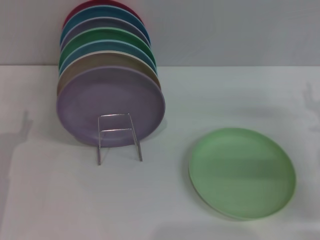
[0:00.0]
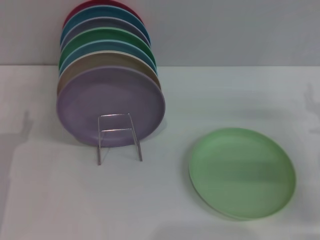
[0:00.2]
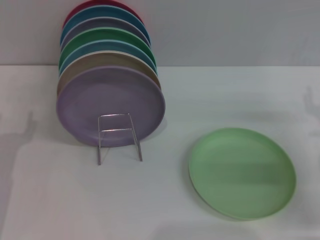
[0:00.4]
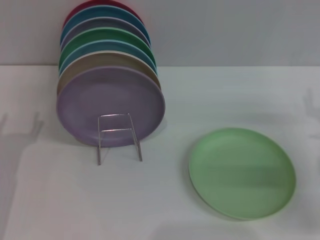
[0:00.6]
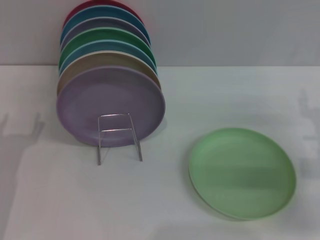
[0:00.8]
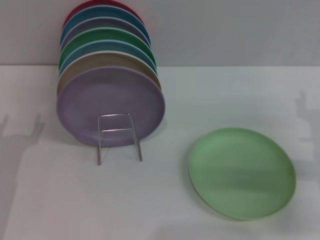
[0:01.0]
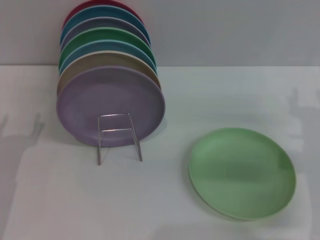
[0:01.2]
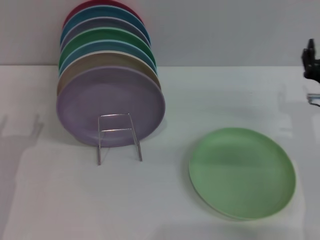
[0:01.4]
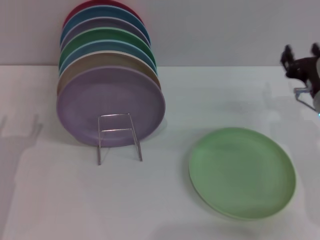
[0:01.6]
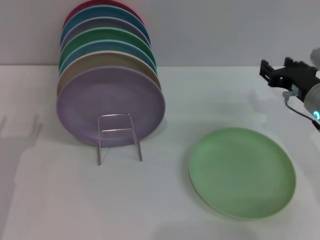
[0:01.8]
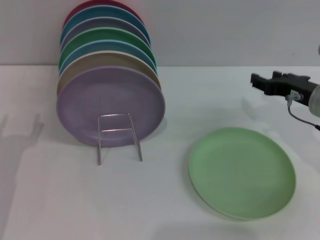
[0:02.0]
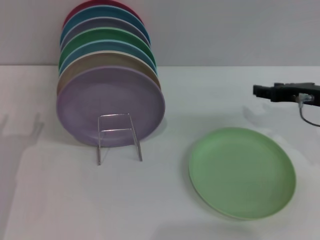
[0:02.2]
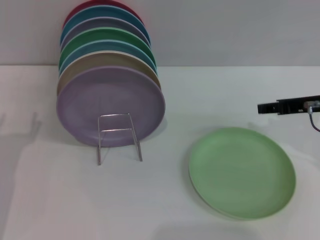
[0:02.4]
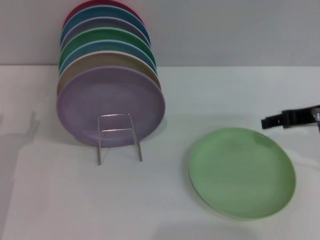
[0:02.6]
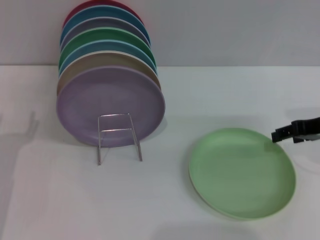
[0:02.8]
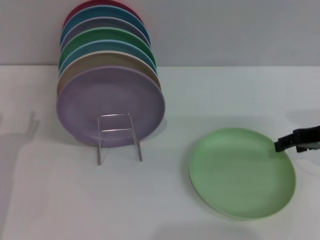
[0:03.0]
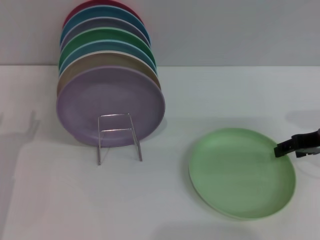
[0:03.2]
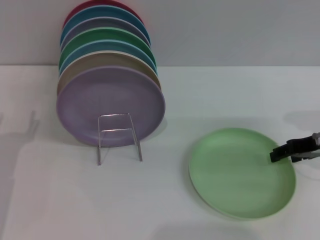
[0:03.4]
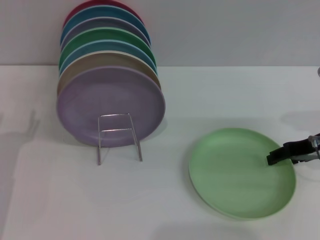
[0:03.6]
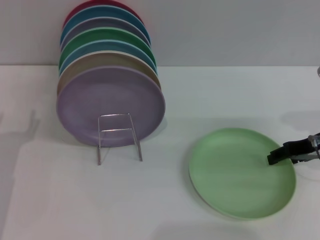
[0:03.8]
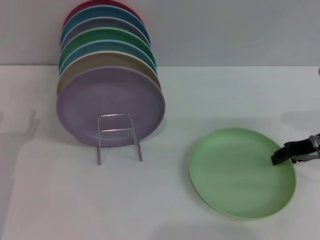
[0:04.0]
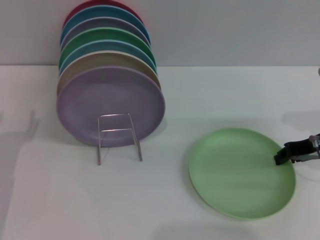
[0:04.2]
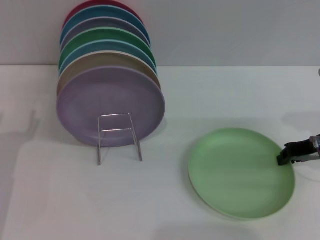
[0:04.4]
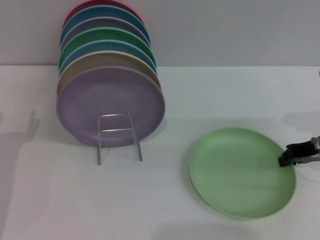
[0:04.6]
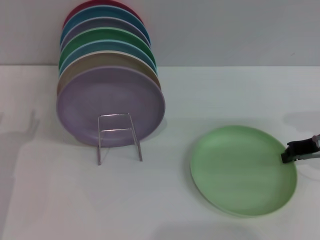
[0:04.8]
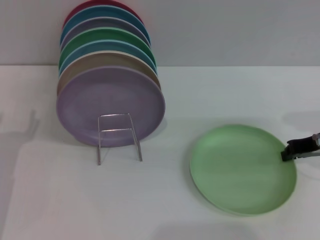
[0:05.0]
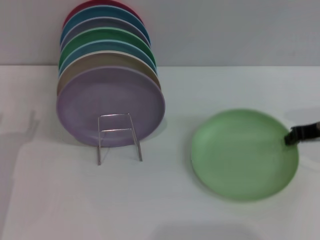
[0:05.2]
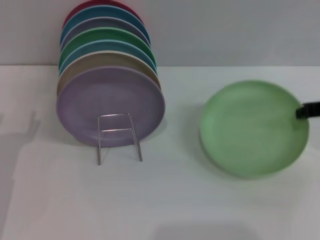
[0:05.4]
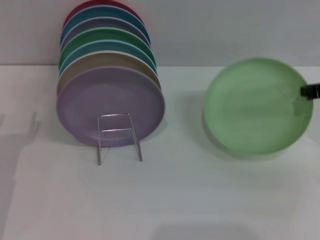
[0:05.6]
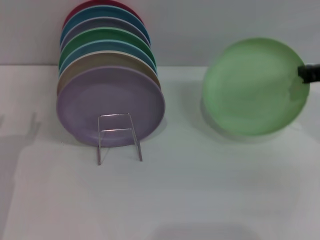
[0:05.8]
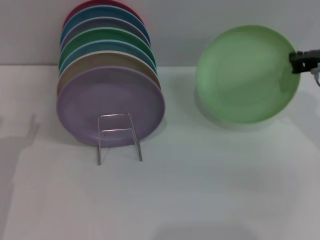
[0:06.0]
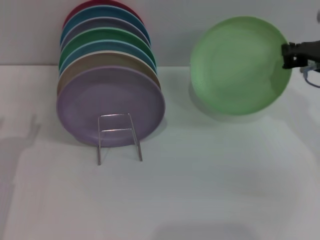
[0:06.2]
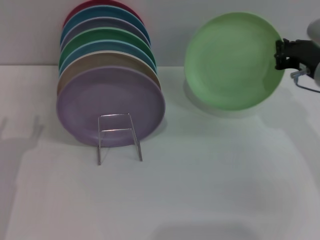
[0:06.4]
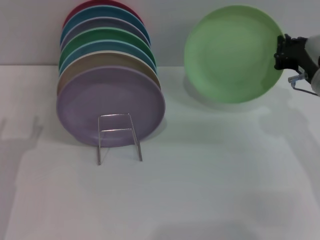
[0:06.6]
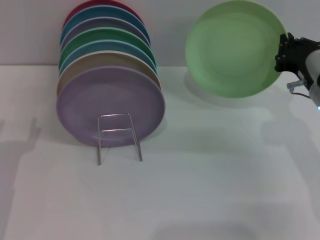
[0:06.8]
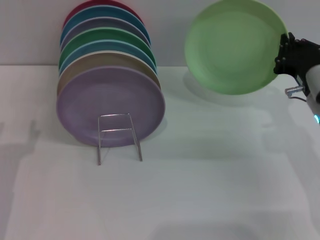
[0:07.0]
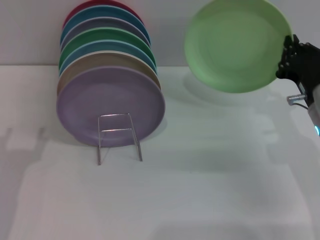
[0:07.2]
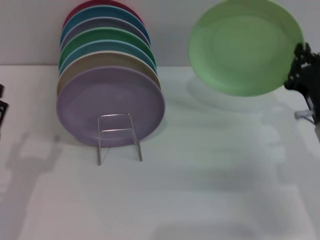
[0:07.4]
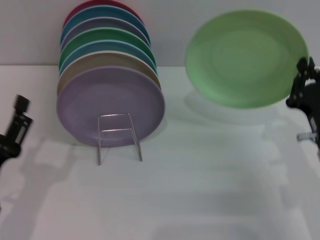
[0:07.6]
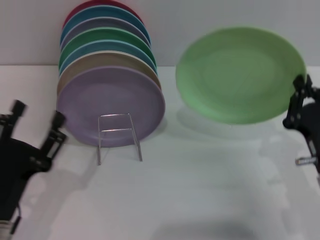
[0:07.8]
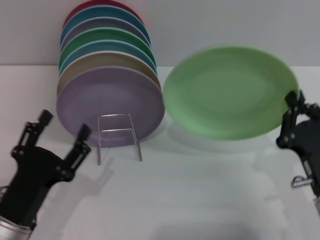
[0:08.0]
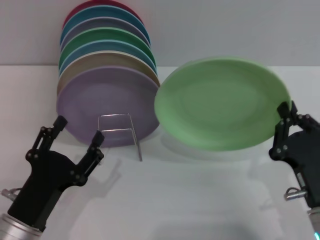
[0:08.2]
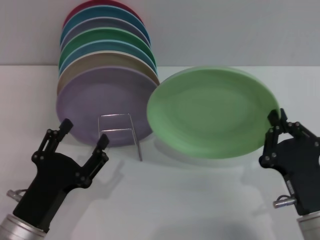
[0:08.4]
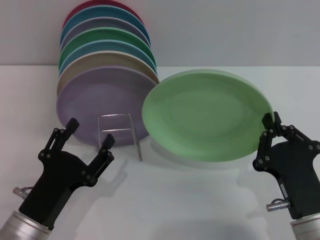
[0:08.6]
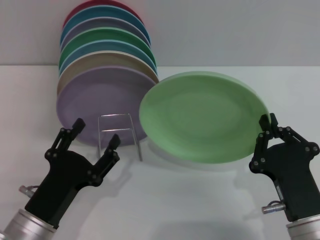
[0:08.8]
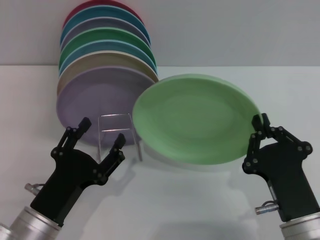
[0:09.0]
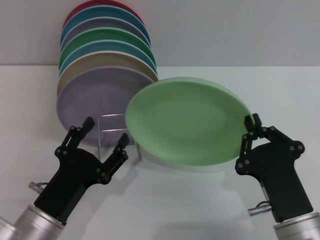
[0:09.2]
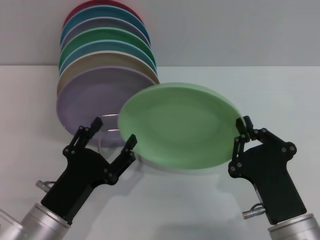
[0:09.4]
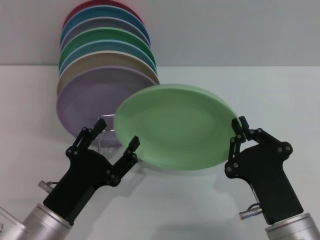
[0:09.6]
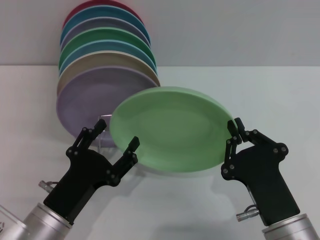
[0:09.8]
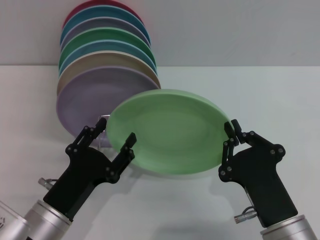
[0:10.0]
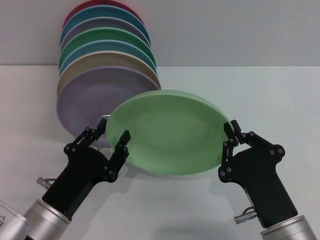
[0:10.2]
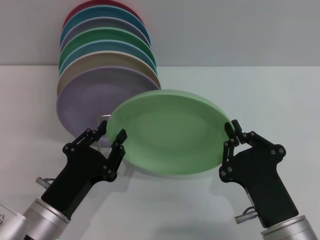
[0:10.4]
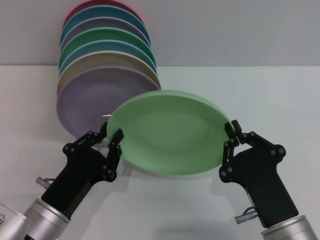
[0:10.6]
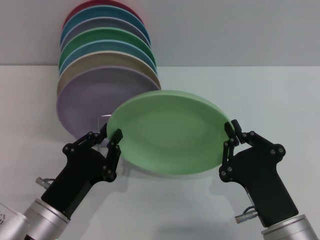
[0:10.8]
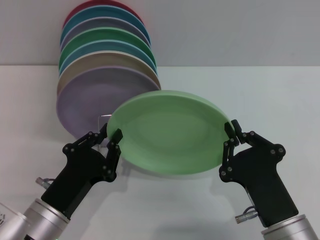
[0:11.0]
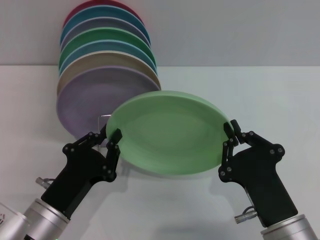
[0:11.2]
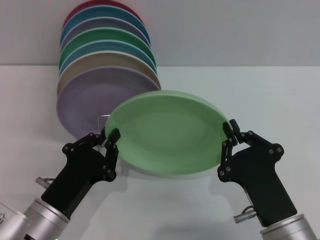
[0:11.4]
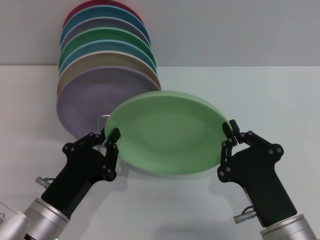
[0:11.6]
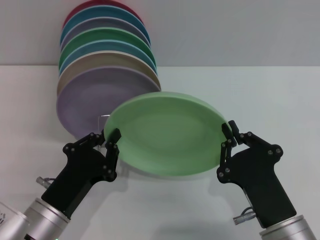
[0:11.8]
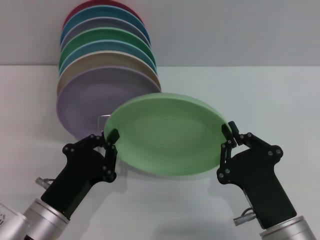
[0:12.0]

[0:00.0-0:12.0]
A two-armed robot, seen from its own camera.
Task of the whole recording: Grip the plate with one hand, pass it to the other, then set it on the shelf.
Step, 0:00.0 to 0:05.6: Pick up the plate with the right gripper.
0:00.0 to 0:01.6: The right gripper shifts about 5 cm to the left.
0:01.6 to 0:03.0: The right gripper moves upward, approximately 5 cm.
0:03.0 to 0:04.4: The right gripper closes up.
0:04.4 to 0:06.0: The right gripper is displaced upward by some 5 cm, and closes its fingers.
0:06.0 to 0:07.6: The left gripper shifts some 5 cm backward; the right gripper heads downward and backward, covering approximately 15 cm.
0:07.6 to 0:09.0: The right gripper heads backward and to the left, covering approximately 10 cm. Meanwhile the left gripper moves to the right, roughly 5 cm.
0:09.0 to 0:10.4: The grippers stay close to where they were, moving slightly.
0:10.4 to 0:12.0: The left gripper closes up.

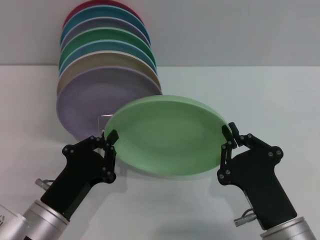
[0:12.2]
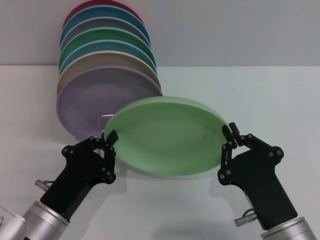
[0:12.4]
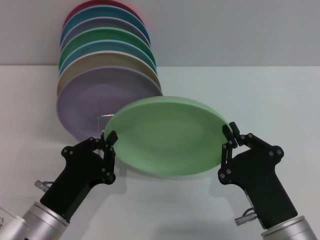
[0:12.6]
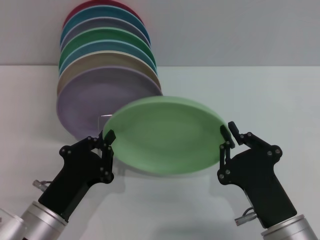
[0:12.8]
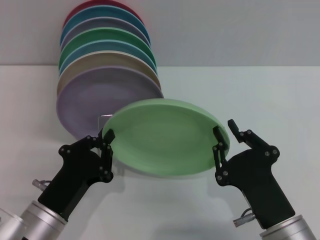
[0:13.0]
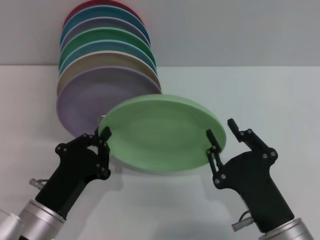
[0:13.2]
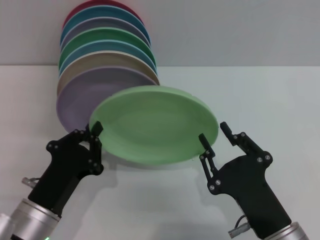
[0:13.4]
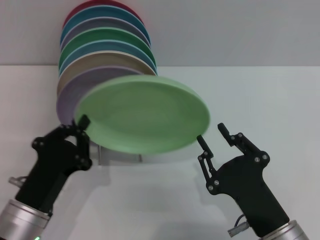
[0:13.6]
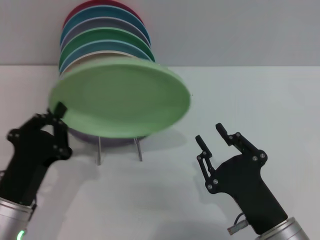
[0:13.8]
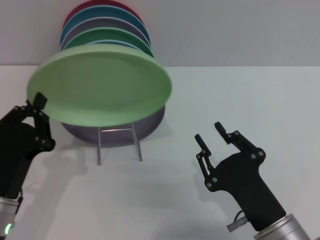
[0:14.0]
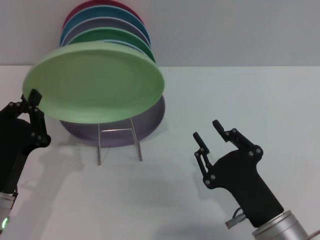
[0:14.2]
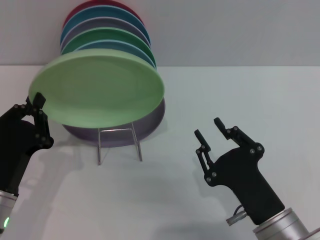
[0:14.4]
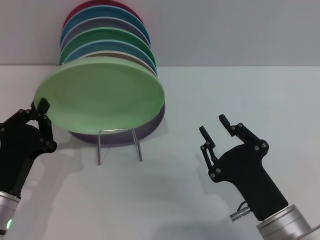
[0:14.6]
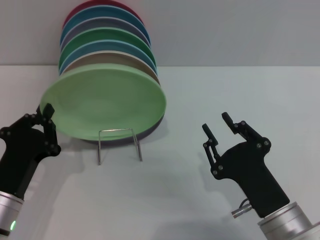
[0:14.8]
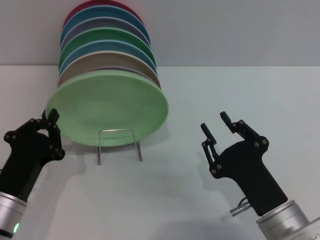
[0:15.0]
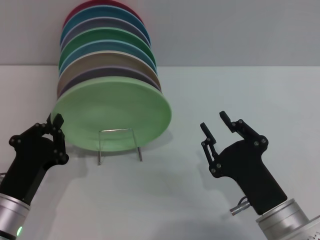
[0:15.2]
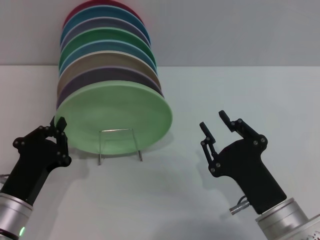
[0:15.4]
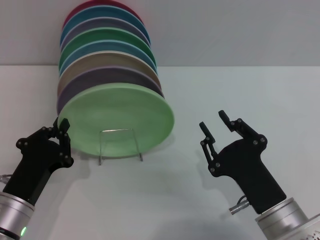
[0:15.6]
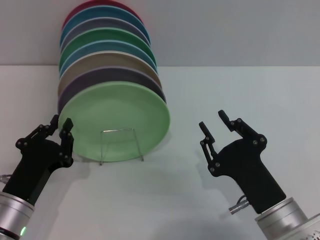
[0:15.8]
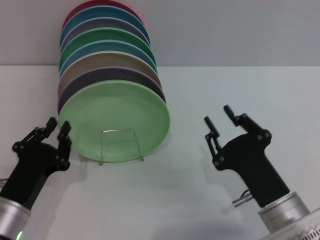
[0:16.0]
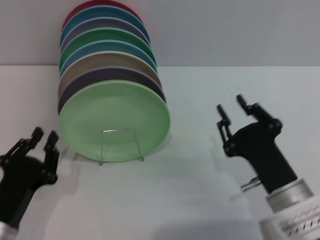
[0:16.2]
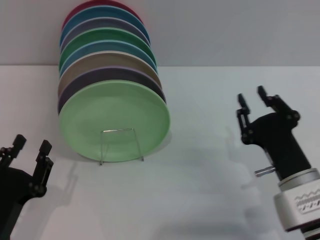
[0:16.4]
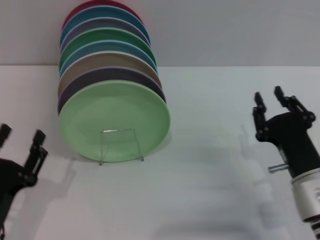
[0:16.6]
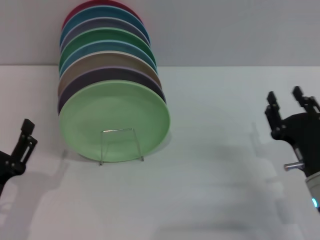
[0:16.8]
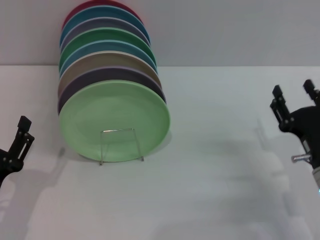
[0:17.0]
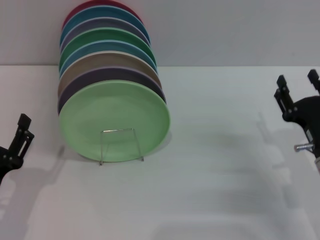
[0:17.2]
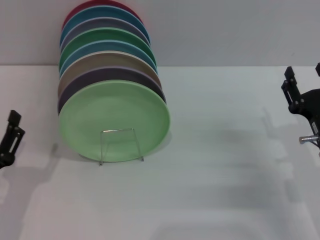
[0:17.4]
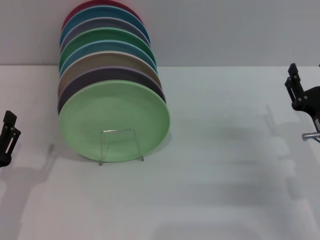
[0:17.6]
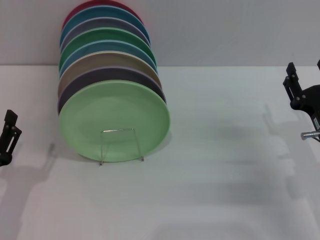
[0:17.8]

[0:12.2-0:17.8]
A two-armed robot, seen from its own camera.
Task of the whole recording: Grip the plate with one hand, pass it to the other, then set it on the shelf.
Step, 0:14.0 to 0:16.0: Place the plate on the shelf with the left gripper.
0:12.2 to 0:13.6: The right gripper opens.
0:15.0 to 0:16.4: The right gripper ends up approximately 5 cm from where it was. Meanwhile the left gripper moves backward, approximately 5 cm.
0:16.4 to 0:17.8: The left gripper opens, while the right gripper moves to the right, roughly 5 cm, and opens up.

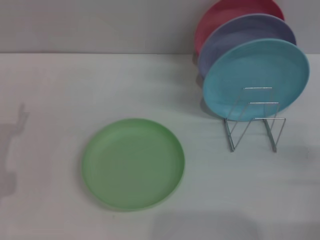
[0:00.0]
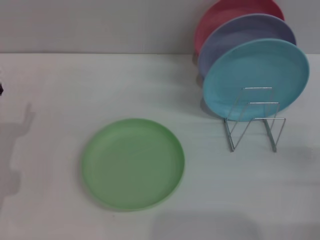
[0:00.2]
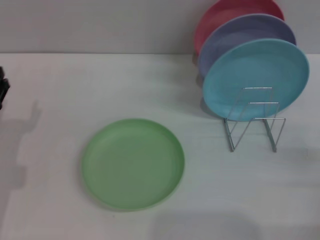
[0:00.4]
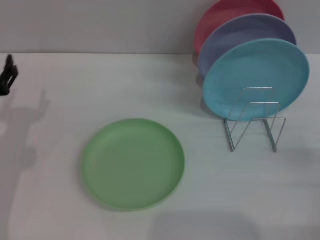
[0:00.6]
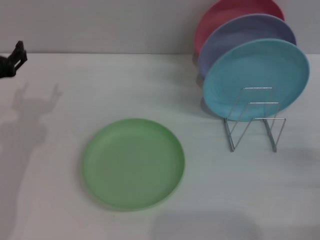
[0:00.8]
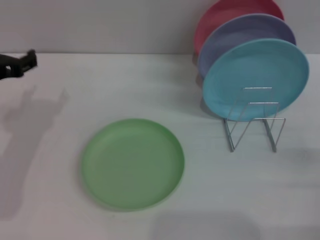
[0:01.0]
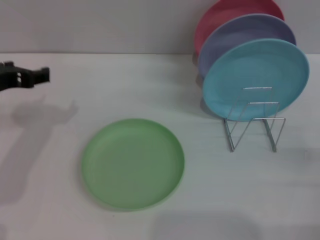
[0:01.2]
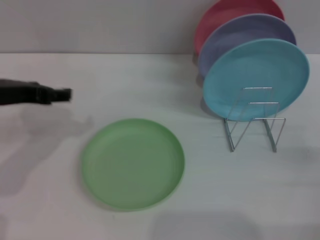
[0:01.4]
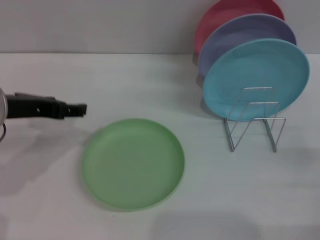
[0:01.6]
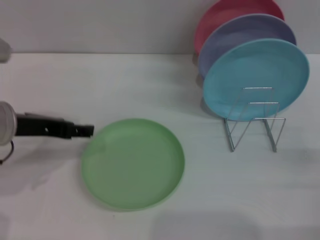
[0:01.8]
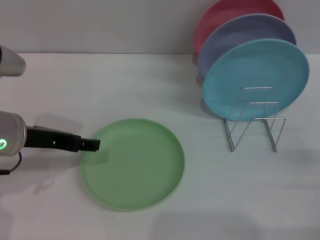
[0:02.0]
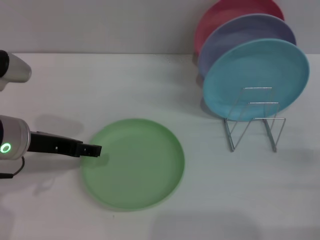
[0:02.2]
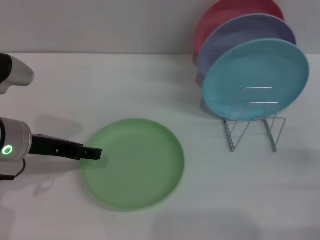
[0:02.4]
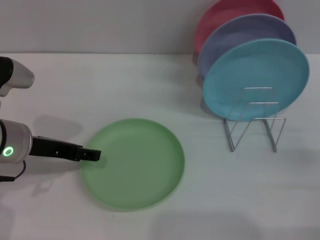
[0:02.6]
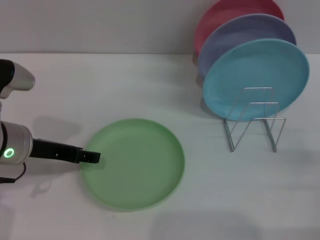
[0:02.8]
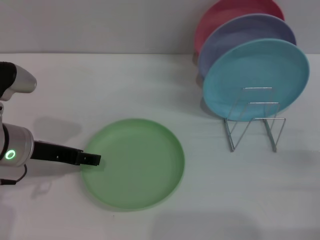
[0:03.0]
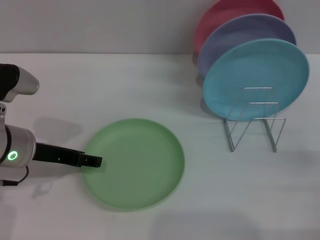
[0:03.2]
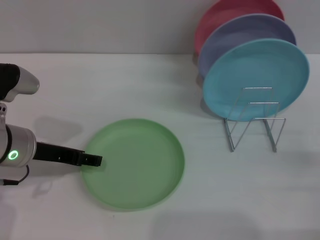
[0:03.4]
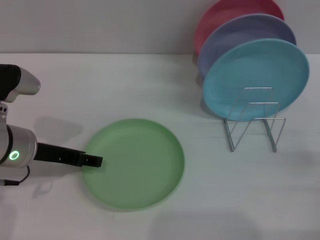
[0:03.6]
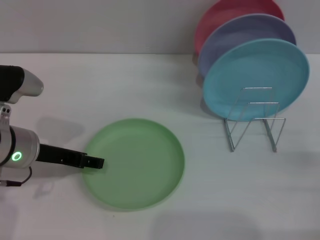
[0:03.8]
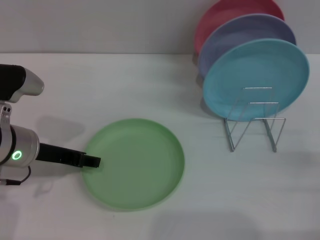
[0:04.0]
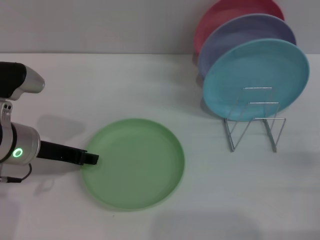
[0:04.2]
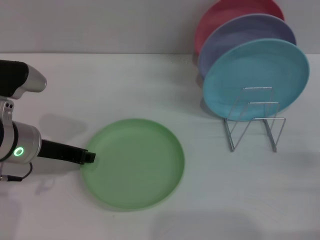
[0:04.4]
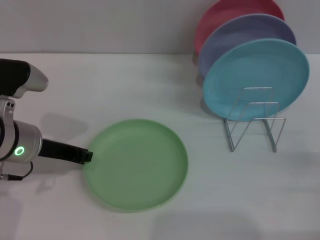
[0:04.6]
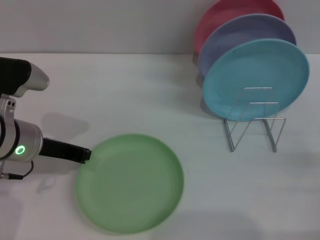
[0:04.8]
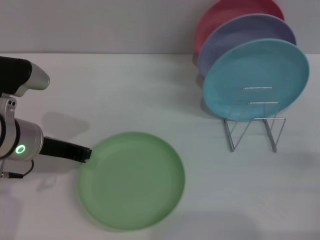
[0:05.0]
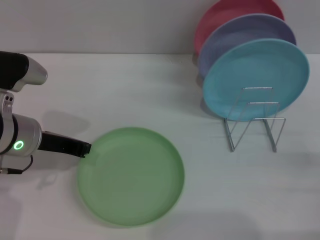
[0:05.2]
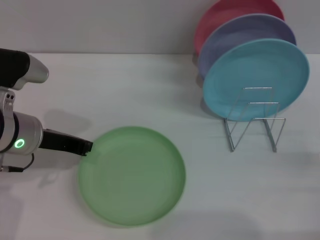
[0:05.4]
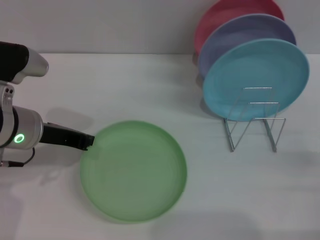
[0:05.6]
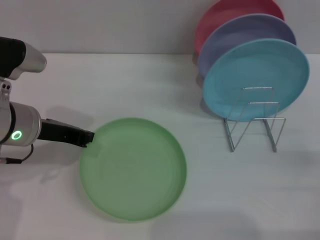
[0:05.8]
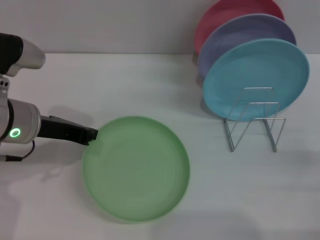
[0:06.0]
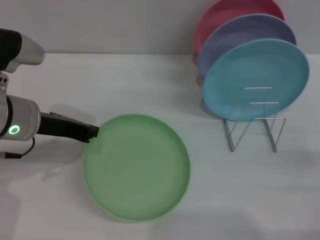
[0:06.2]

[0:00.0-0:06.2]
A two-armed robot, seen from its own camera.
Task of the whole recording: Grip the plate with one hand, pass it to the other, then set it on the shelf.
0:00.0 to 0:01.6: The left gripper shifts roughly 15 cm upward and to the right.
0:01.6 to 0:03.2: The left gripper moves downward, some 5 cm.
0:03.2 to 0:04.6: The left gripper closes up.
0:04.6 to 0:06.2: The left gripper closes up.
